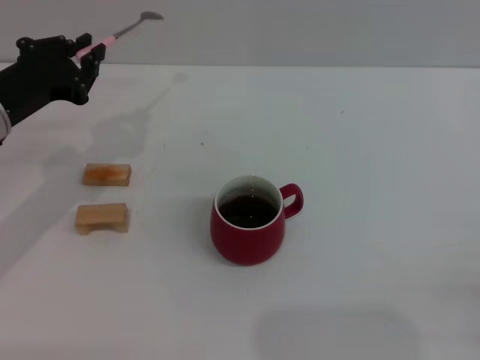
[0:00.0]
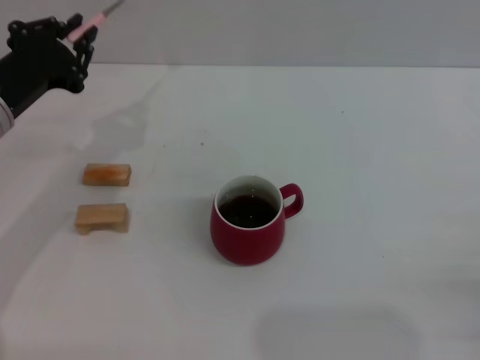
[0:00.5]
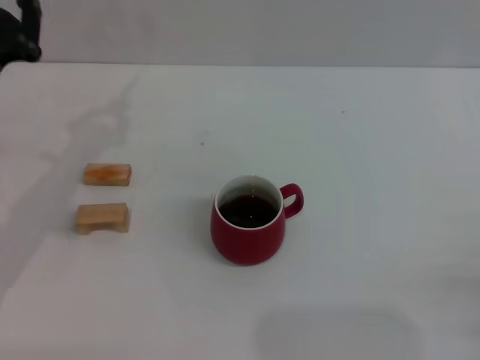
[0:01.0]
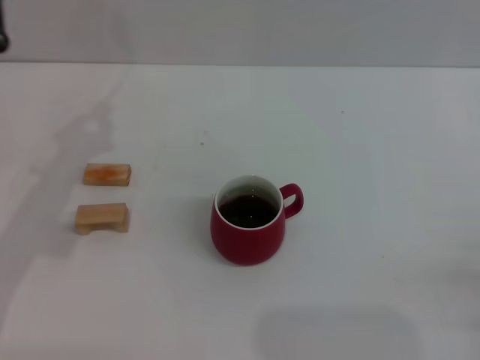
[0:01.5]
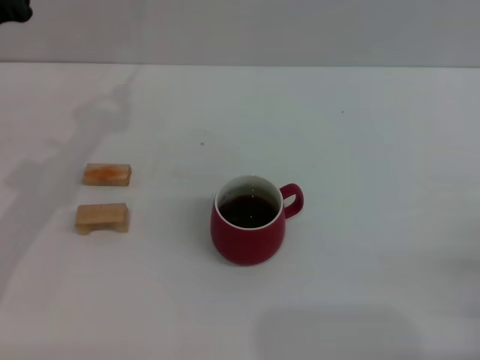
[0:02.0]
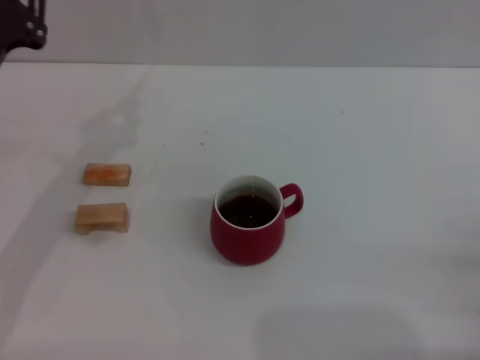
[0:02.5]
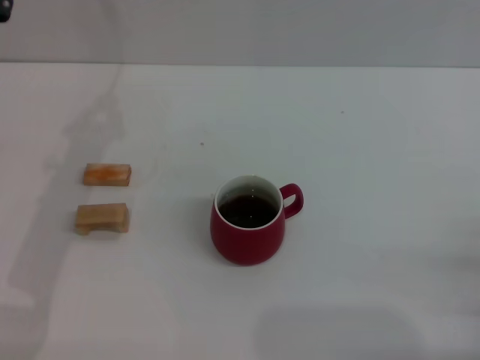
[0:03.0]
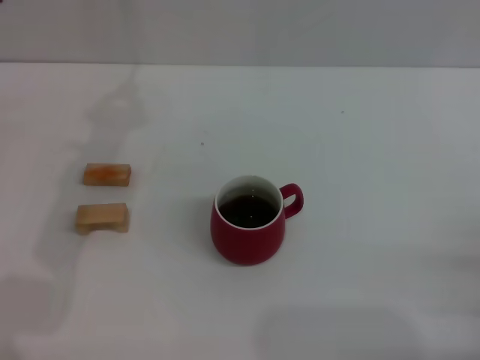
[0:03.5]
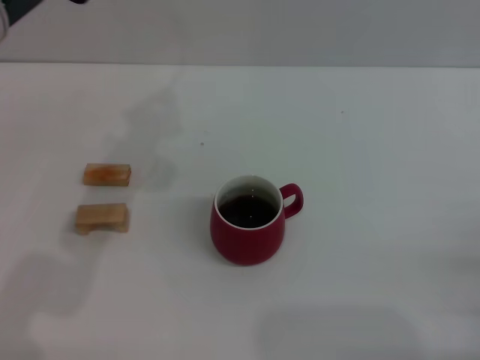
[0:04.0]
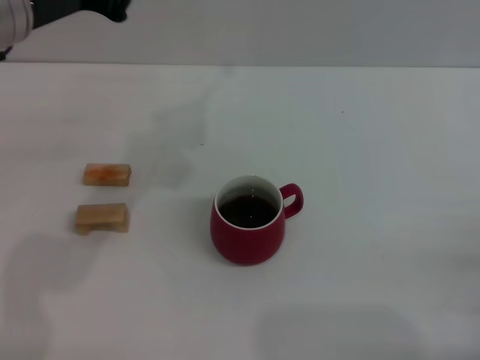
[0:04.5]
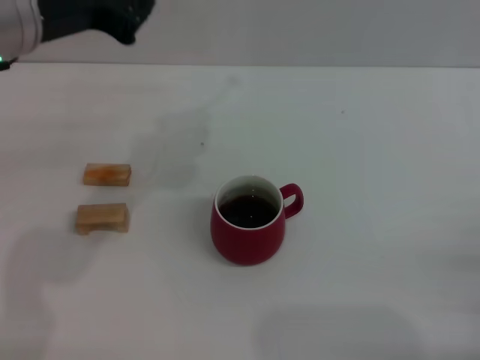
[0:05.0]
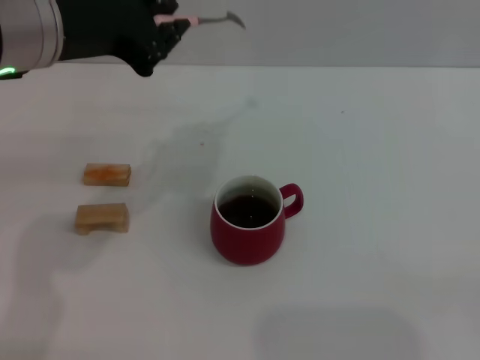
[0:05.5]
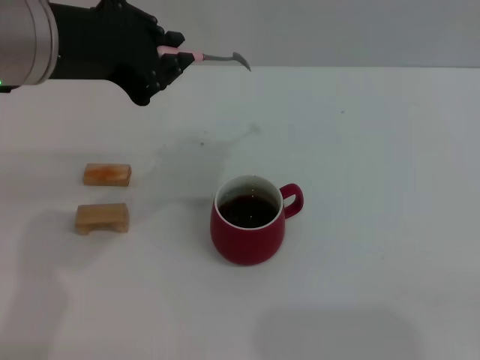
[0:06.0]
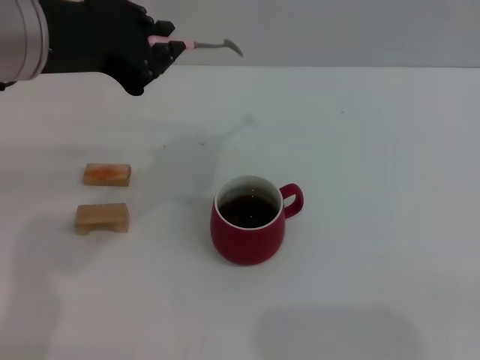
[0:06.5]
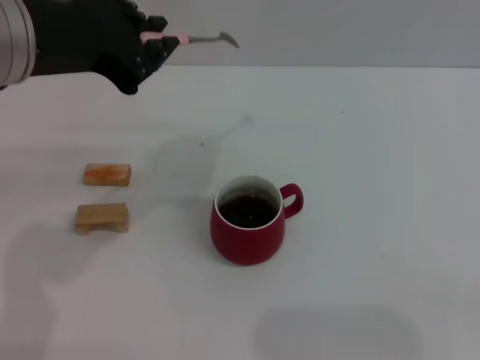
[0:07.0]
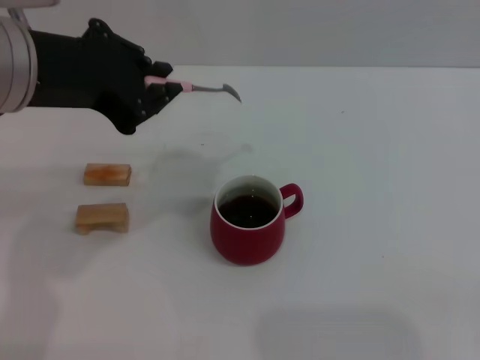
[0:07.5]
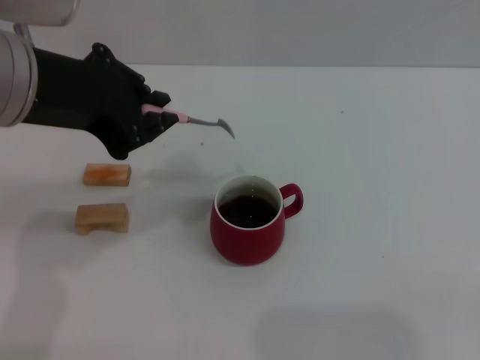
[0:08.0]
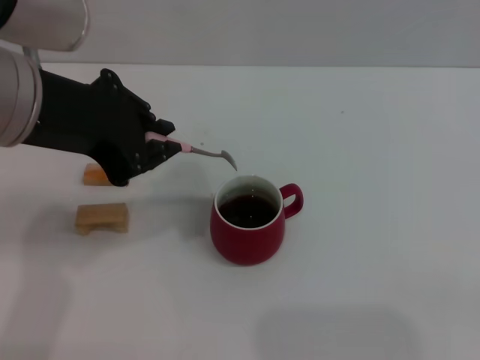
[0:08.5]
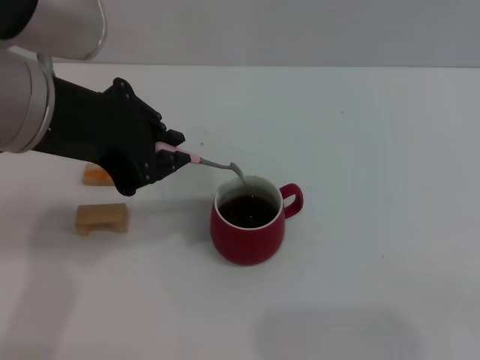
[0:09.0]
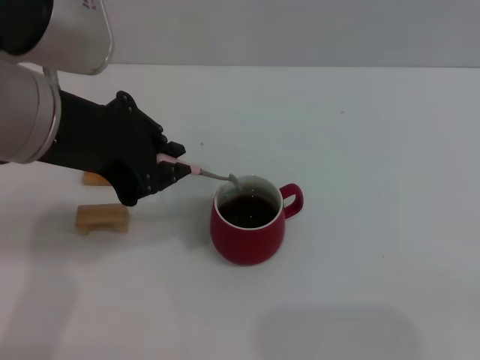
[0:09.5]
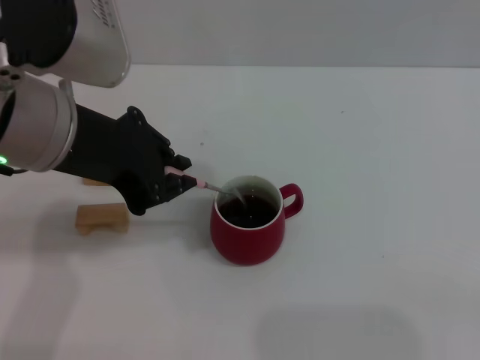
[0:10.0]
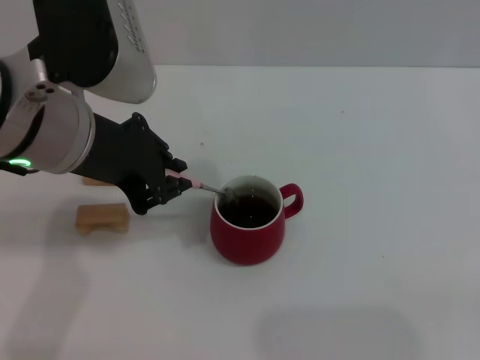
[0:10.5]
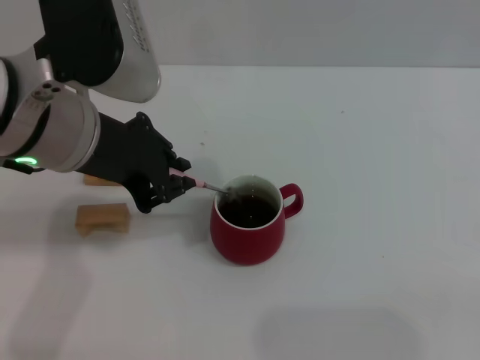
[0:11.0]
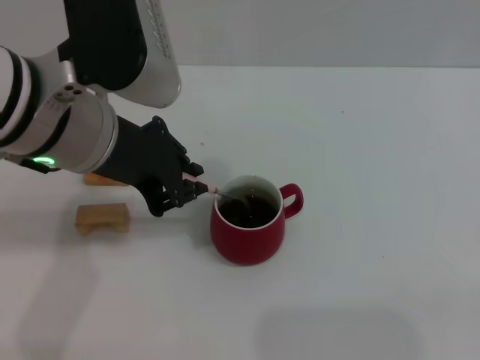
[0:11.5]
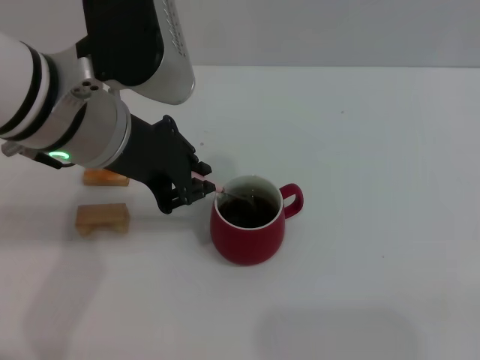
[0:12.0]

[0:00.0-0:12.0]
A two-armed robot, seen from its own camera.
Task of the whole recording: Move the red cup to the center, lift the pink spoon, stir it three times in the cup, and put the spoon into the cup.
0:04.0 to 0:06.0: The right gripper changes place by some 5 cm.
0:06.0 to 0:08.0: The grippers make only small movements.
0:08.0 to 0:10.0: The grippers move only a little.
0:10.0 to 0:12.0: There are only small adjustments of the grippers.

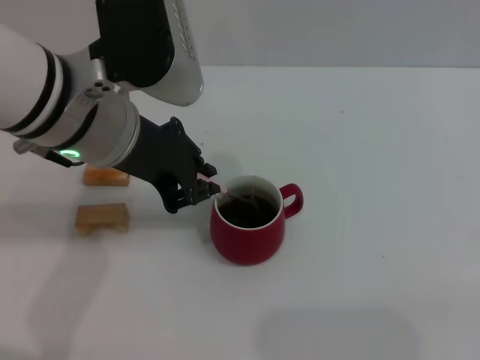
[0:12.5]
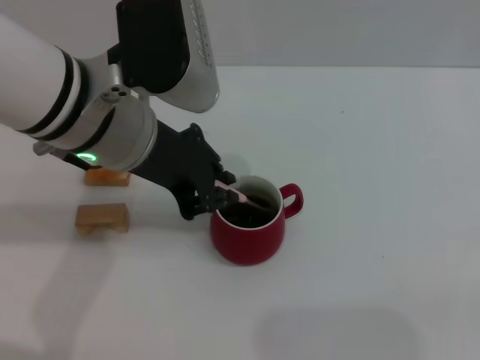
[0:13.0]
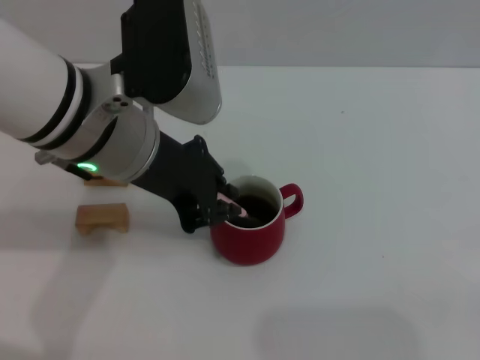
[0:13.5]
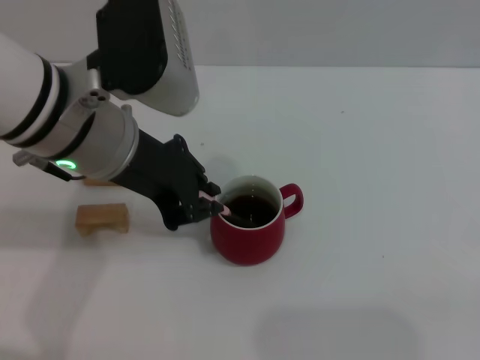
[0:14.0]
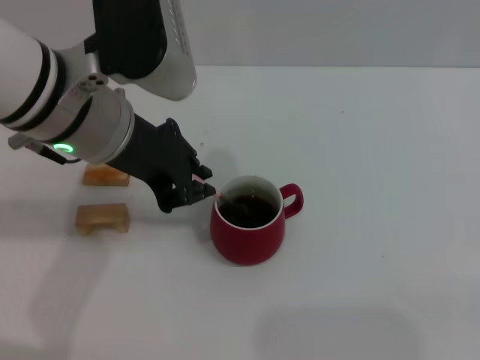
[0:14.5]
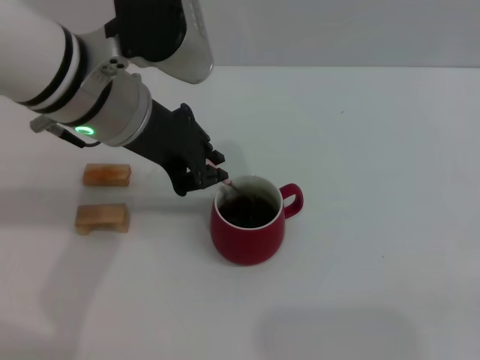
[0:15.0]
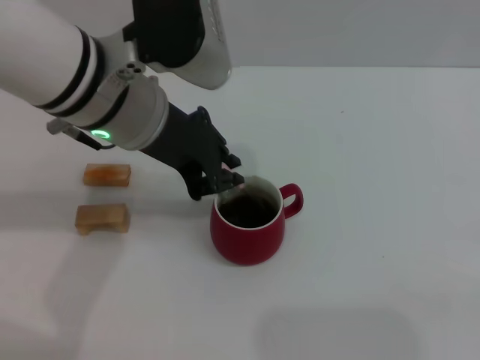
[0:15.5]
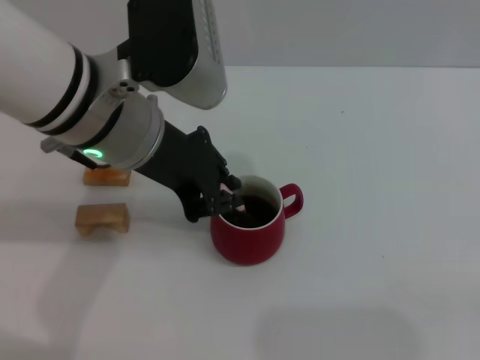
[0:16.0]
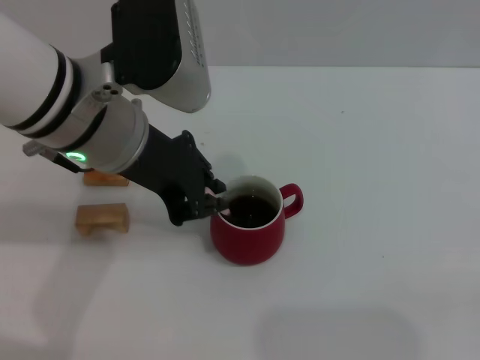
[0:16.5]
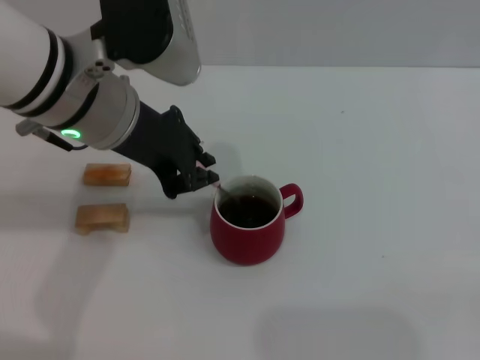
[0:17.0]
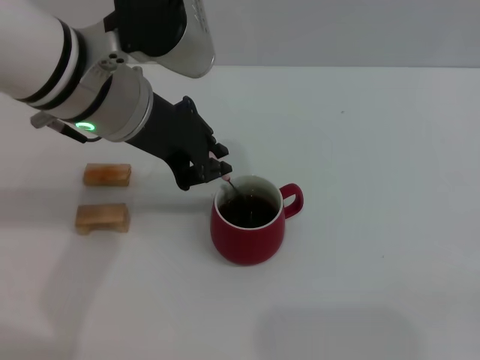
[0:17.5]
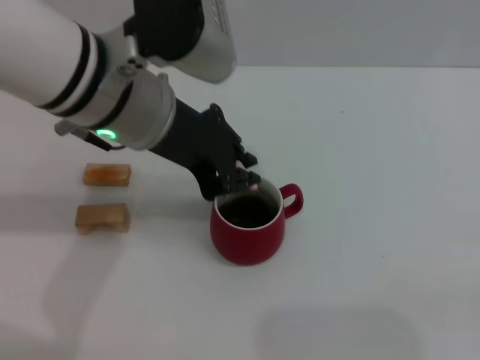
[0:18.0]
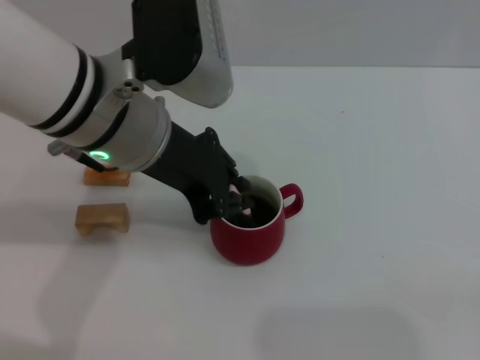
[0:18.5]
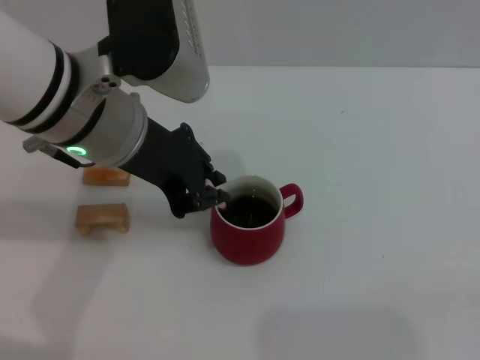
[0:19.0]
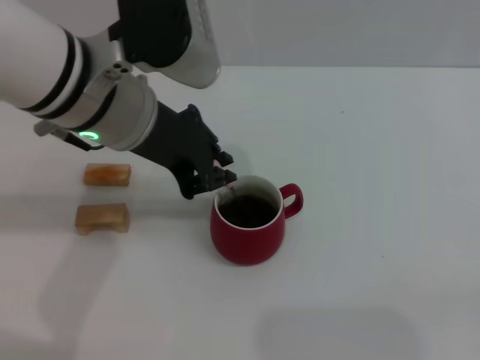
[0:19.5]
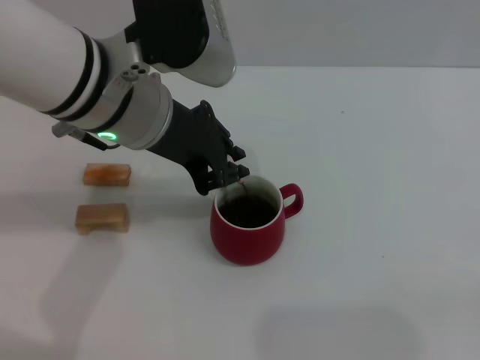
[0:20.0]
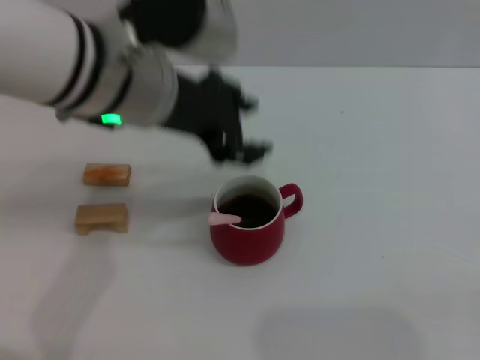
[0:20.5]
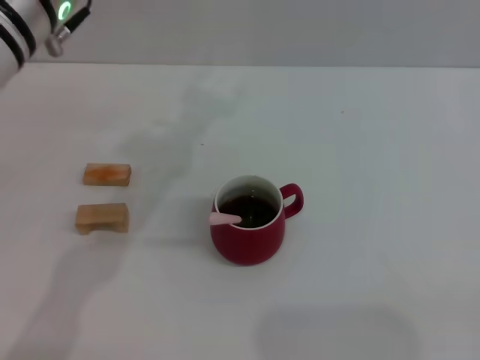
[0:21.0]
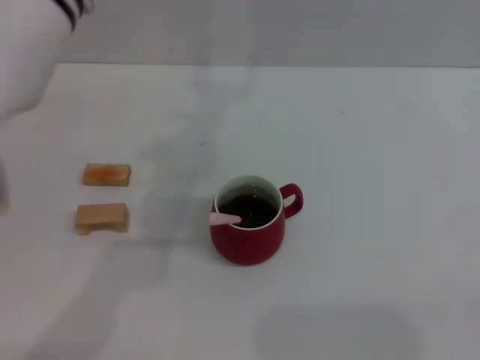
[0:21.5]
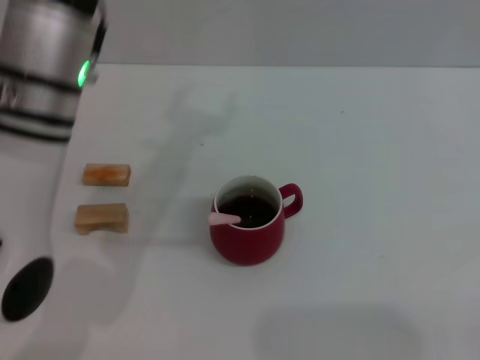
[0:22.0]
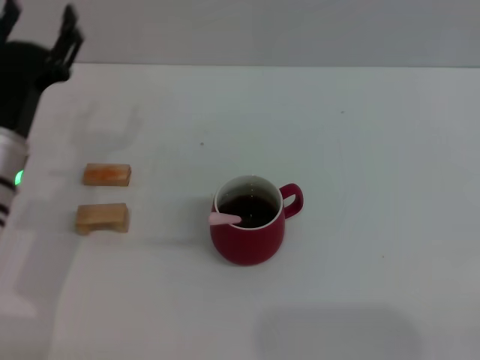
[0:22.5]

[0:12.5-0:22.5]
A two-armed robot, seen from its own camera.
Task of the whole recording: Move the red cup to the center, lift the pink spoon, stir it three times in the cup, and put the spoon into the cup.
Step, 0:12.5 to 0:20.0: Stir the coffee in the cup with the left gripper.
0:12.5 to 0:18.5: The grippers stay close to where they were, moving slightly.
0:18.5 to 0:20.5: The left gripper opens up.
0:20.5 to 0:22.5: The left gripper is displaced downward and to the left by approximately 20 cm, and opens up.
